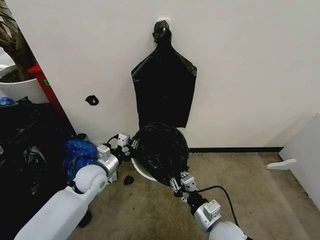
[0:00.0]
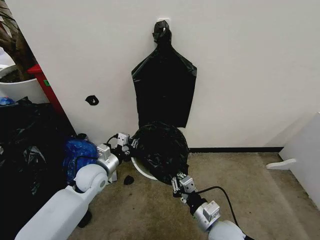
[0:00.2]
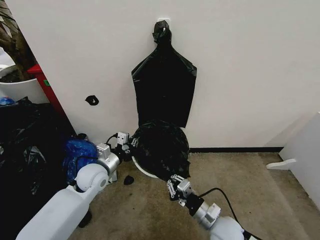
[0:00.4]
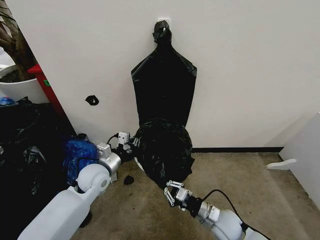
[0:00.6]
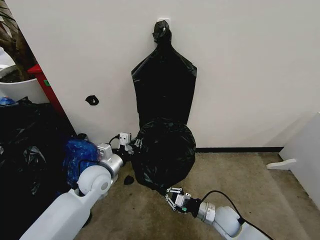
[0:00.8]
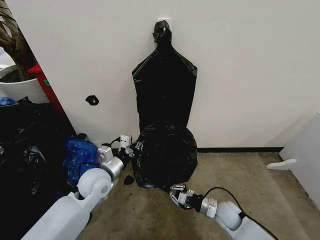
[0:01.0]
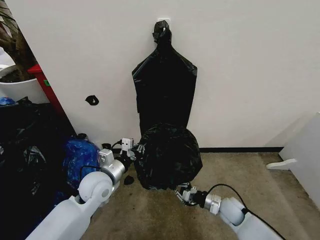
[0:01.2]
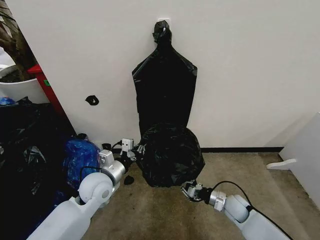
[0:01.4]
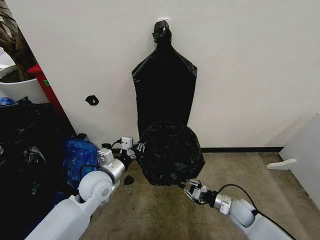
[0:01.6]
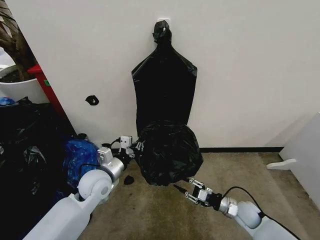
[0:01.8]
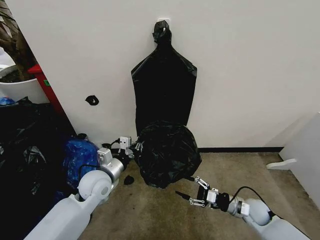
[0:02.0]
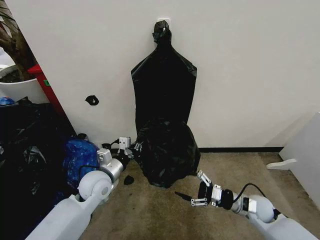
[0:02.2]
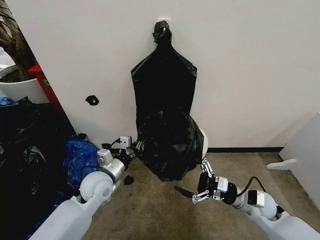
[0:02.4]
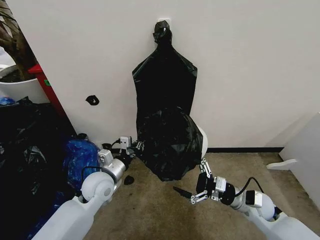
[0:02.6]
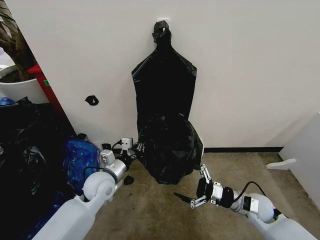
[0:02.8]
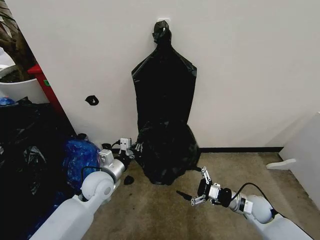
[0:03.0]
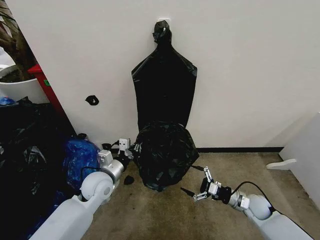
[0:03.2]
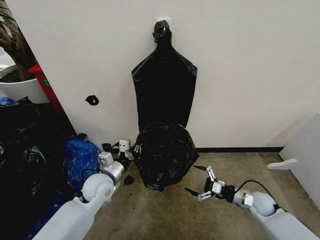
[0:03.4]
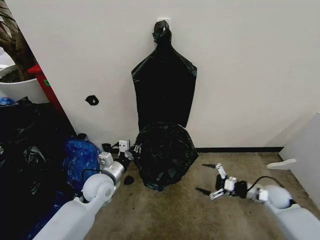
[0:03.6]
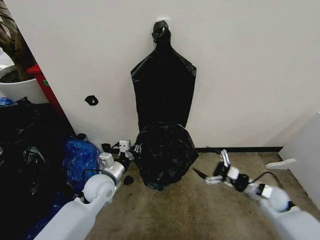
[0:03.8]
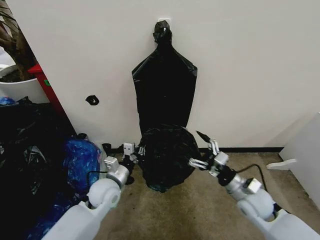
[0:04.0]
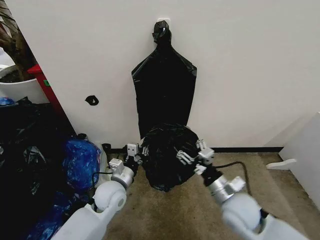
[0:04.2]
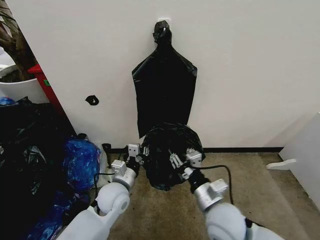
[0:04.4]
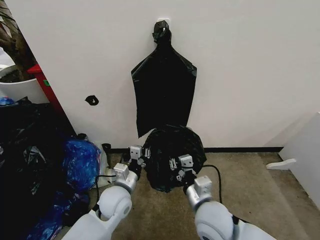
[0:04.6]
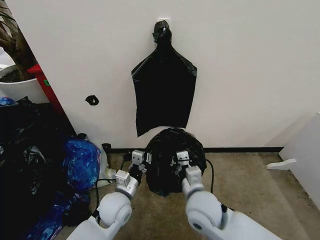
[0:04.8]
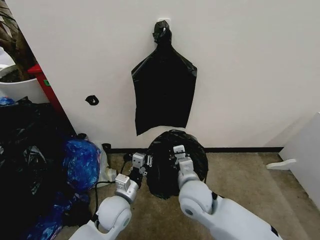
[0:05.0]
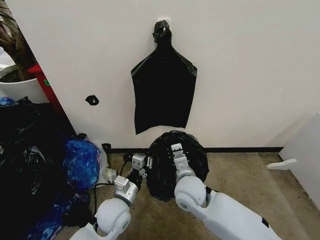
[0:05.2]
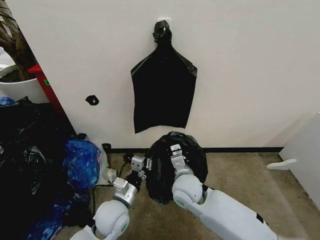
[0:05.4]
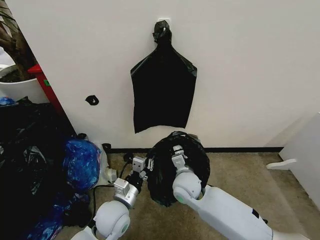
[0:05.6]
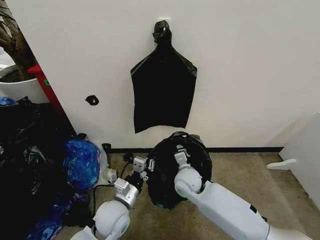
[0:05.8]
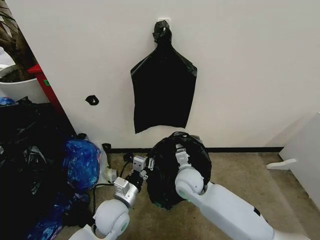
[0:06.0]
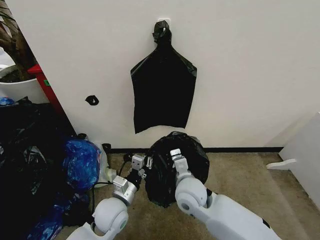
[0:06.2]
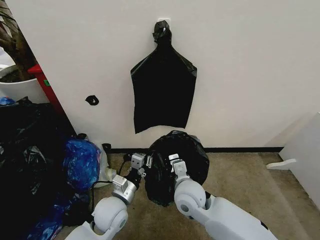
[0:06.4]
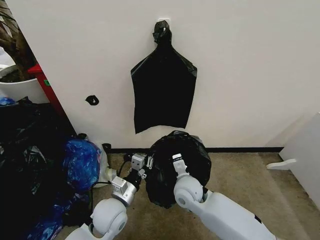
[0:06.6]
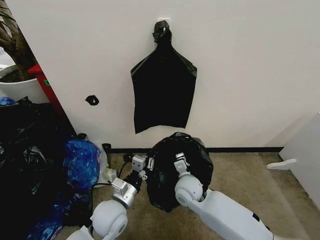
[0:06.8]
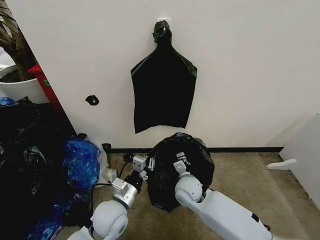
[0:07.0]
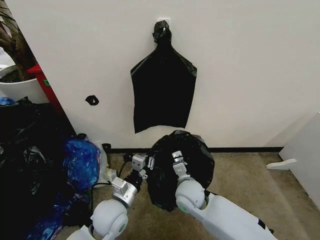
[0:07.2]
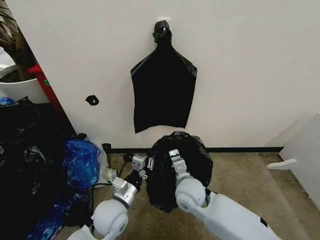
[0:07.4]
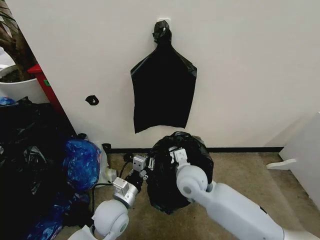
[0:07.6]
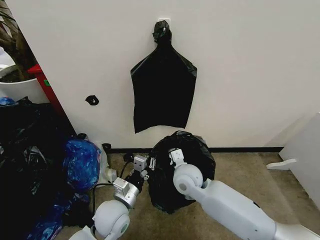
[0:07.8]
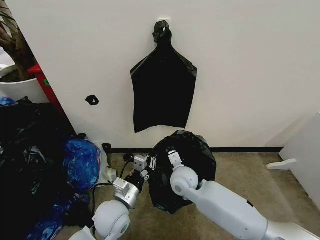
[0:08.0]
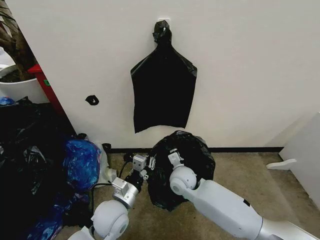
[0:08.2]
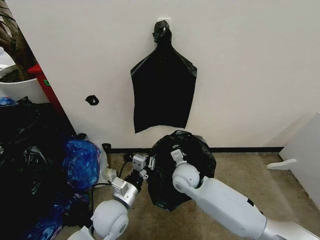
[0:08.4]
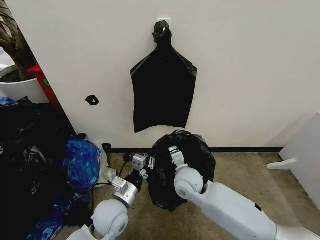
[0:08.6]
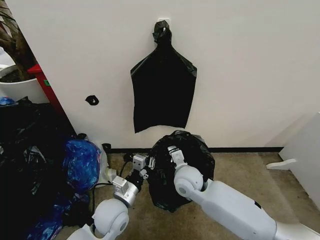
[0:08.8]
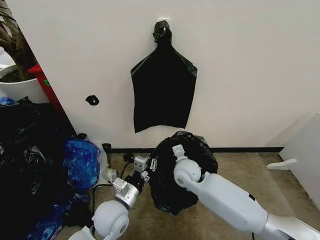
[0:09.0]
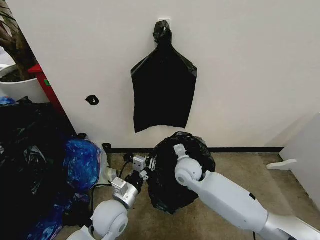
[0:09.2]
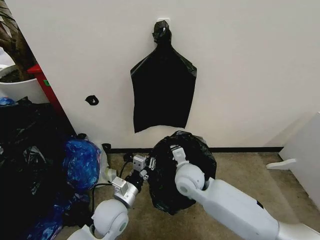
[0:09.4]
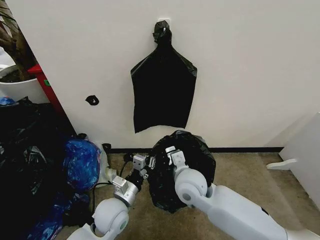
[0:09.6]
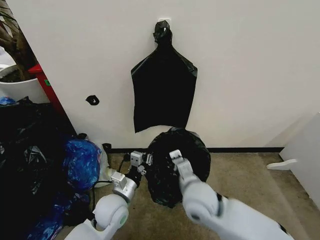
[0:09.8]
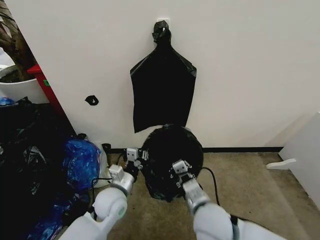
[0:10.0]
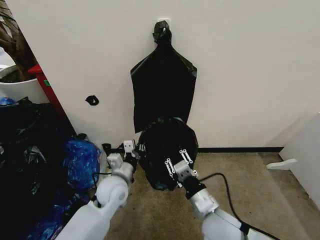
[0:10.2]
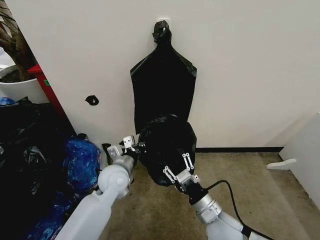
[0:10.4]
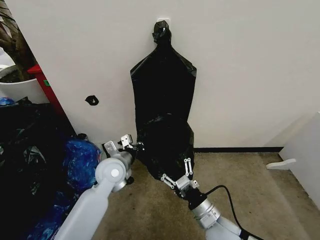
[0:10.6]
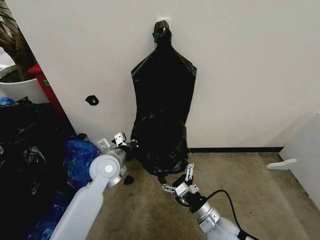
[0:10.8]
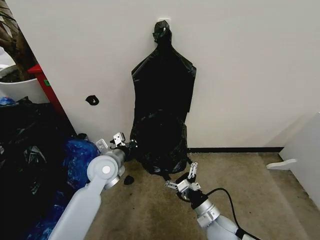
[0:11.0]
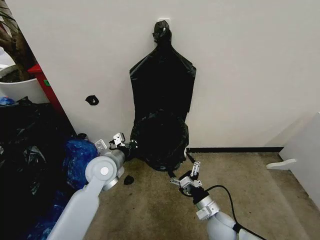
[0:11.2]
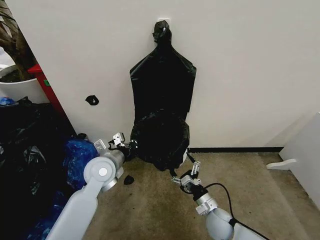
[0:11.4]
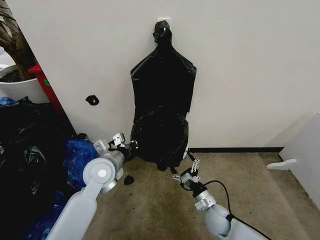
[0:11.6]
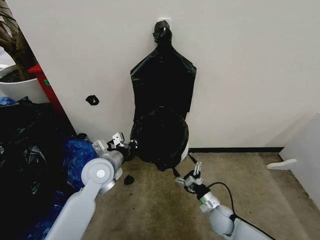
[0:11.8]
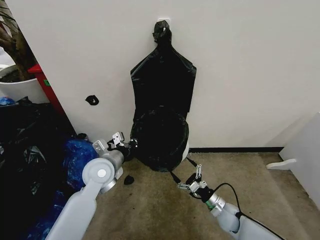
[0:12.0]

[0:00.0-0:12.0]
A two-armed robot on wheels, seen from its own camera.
Task of the whole recording: Place the garbage bag over the trash bin.
0:00.0 to 0:01.6: The left gripper changes place by roughly 5 cm; the right gripper is displaced downward, to the right and forward by some 25 cm.
0:01.6 to 0:03.0: The right gripper moves upward, about 5 cm, and opens.
0:03.0 to 0:04.4: The left gripper goes some 5 cm to the right, while the right gripper goes roughly 25 cm to the left, upward and backward, and closes.
0:04.4 to 0:06.0: The left gripper moves approximately 5 cm. Meanwhile the right gripper goes approximately 15 cm forward and to the left, and closes.
0:07.6 to 0:09.0: The right gripper goes some 5 cm forward.
0:09.0 to 0:10.4: The left gripper goes roughly 10 cm forward. The right gripper moves backward and to the right, some 20 cm, and opens its fingers.
0:10.4 to 0:12.0: The left gripper moves roughly 5 cm; the right gripper goes approximately 20 cm downward, and opens up.

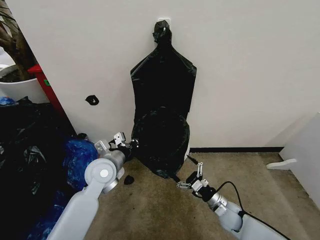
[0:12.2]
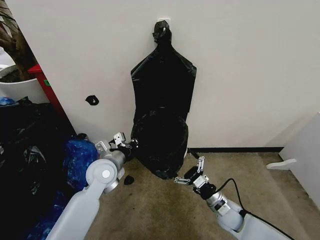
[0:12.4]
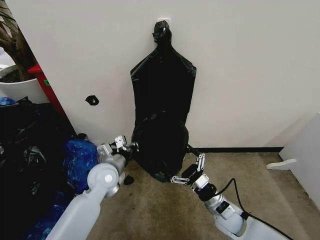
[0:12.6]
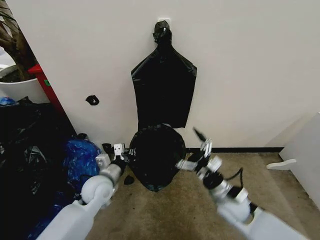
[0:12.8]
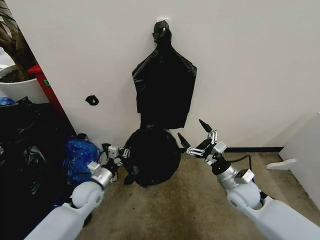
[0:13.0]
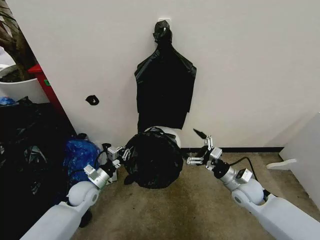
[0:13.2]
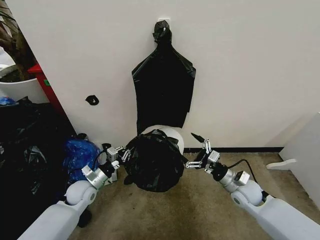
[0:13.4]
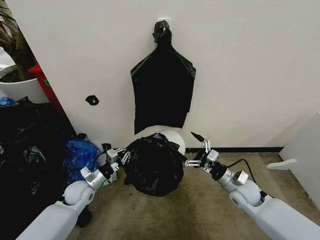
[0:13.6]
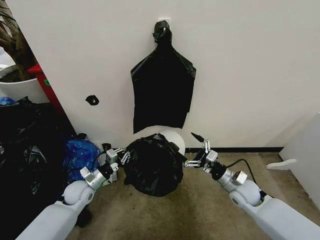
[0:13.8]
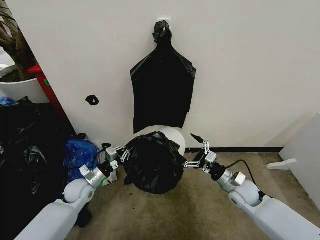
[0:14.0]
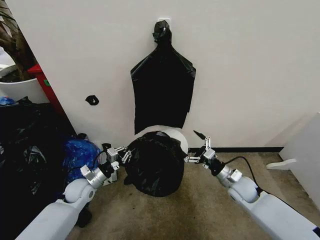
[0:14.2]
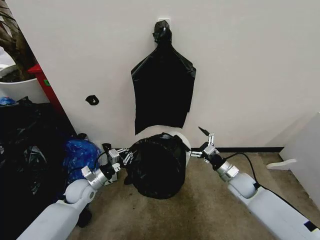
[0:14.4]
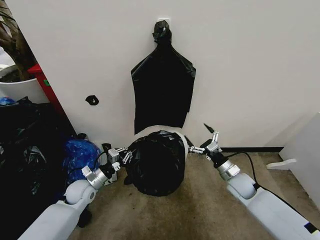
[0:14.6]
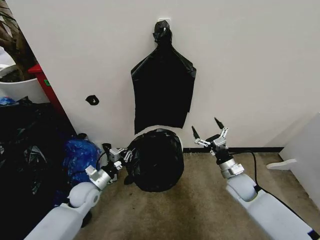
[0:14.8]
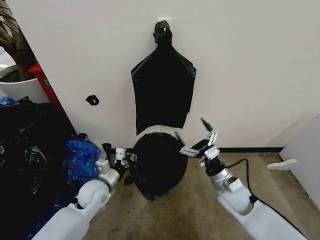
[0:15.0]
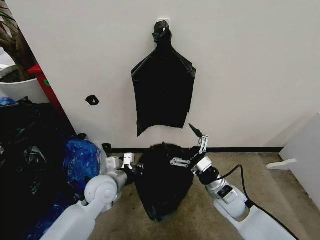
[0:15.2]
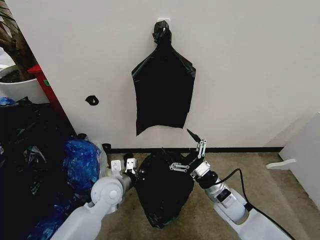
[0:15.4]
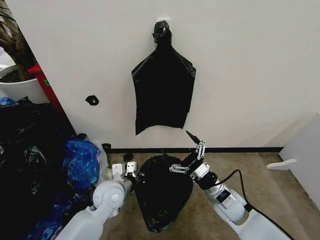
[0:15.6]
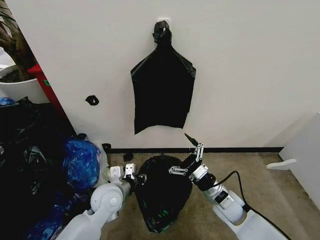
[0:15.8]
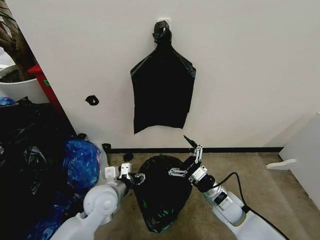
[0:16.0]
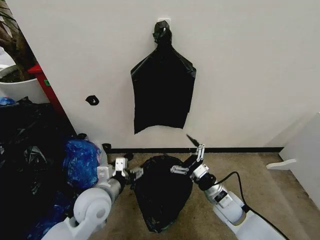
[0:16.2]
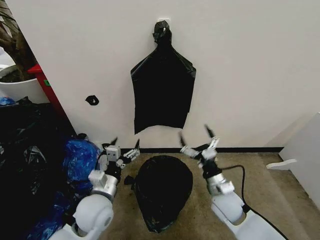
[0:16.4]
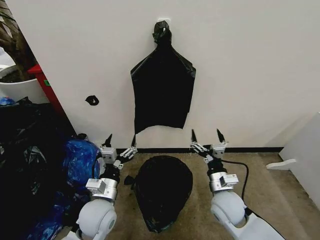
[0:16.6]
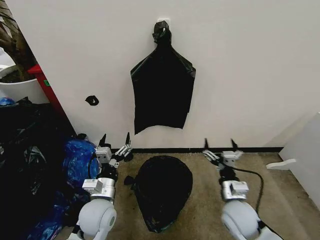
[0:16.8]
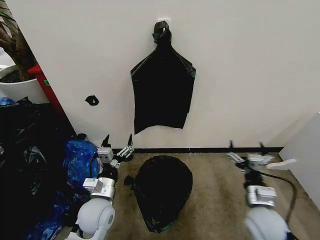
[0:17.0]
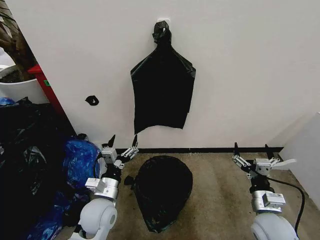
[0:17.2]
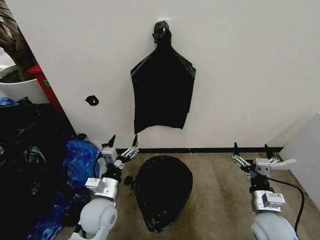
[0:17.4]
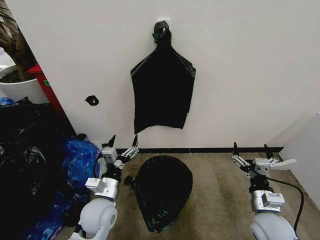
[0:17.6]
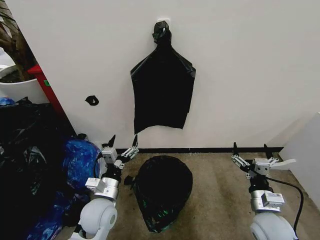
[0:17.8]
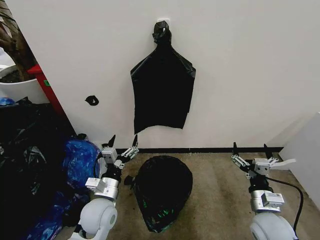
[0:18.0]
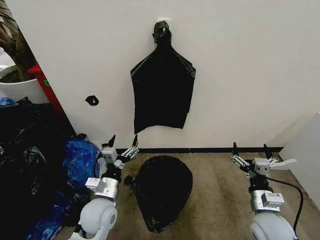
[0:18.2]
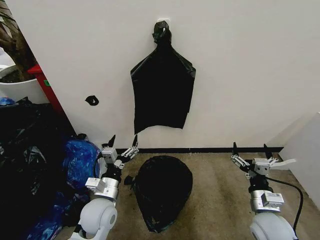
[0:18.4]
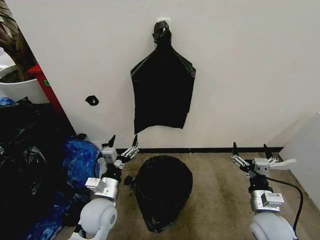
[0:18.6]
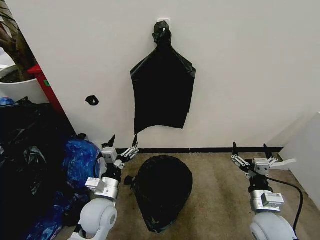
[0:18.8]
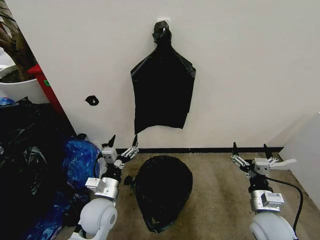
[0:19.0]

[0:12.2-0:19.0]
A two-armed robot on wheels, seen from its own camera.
Task of the whole recording: Place the garbage bag over the trash bin.
0:12.2 to 0:13.6: The right gripper goes some 15 cm upward. Meanwhile the left gripper is displaced downward and to the left by approximately 20 cm.
0:13.6 to 0:15.0: The left gripper heads to the right, covering about 5 cm, while the right gripper is displaced to the left by about 5 cm.
0:15.0 to 0:16.2: The left gripper is displaced upward and backward by approximately 10 cm, and opens its fingers.
0:16.2 to 0:17.6: The left gripper changes place by about 5 cm. Meanwhile the right gripper is displaced backward, to the right and upward by about 15 cm.
0:17.6 to 0:19.0: The two grippers keep their place.

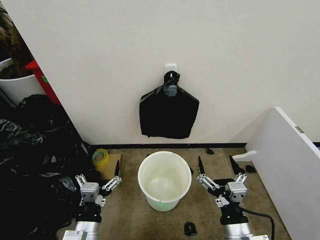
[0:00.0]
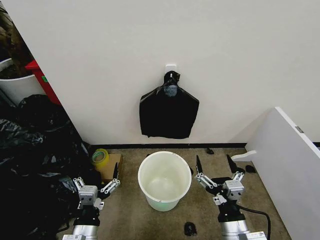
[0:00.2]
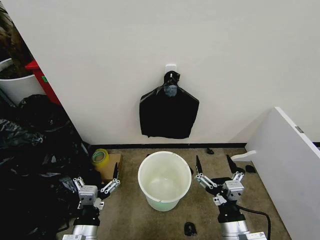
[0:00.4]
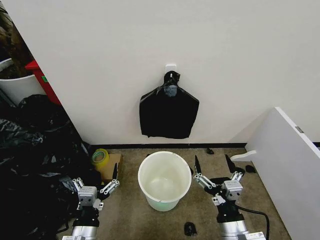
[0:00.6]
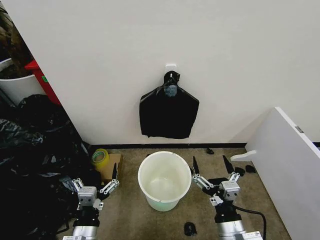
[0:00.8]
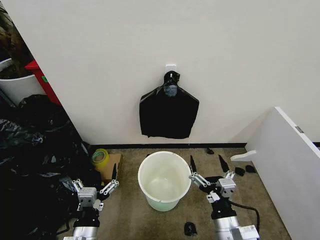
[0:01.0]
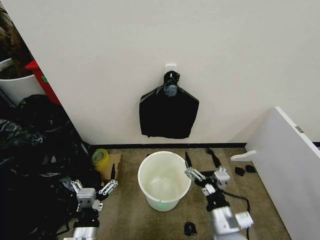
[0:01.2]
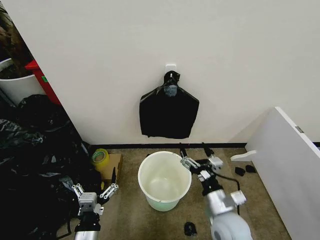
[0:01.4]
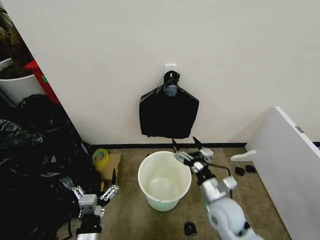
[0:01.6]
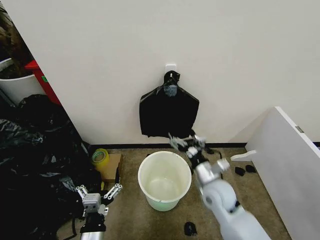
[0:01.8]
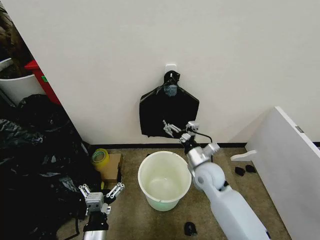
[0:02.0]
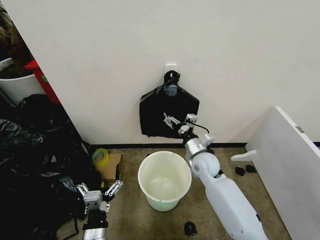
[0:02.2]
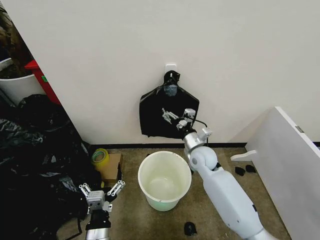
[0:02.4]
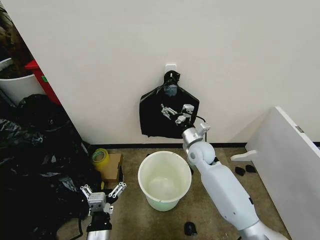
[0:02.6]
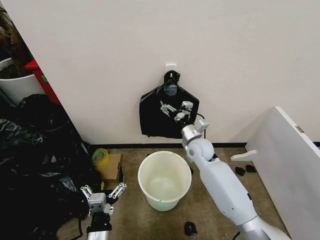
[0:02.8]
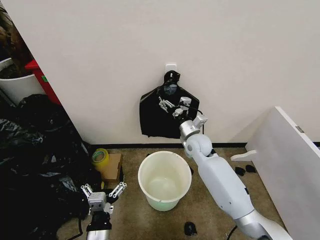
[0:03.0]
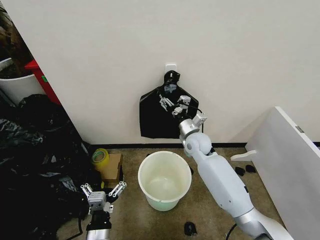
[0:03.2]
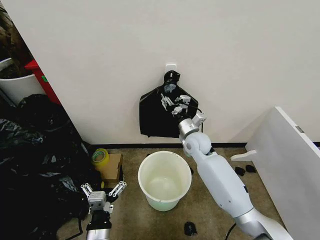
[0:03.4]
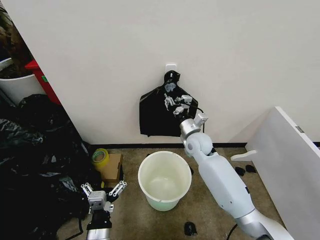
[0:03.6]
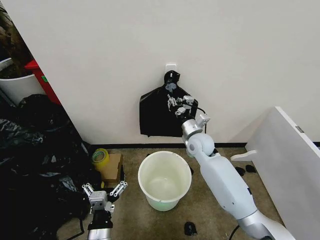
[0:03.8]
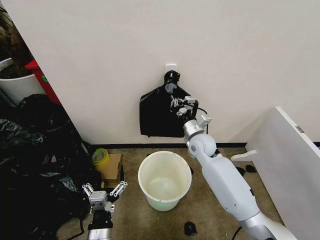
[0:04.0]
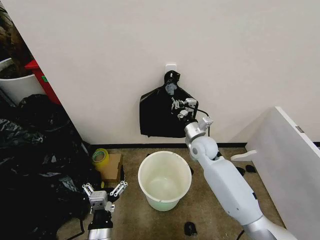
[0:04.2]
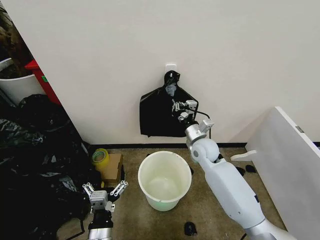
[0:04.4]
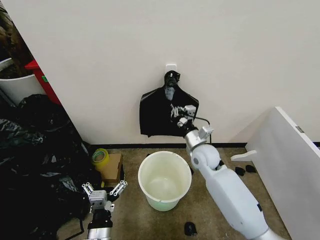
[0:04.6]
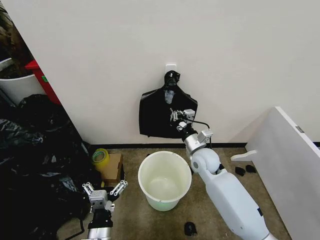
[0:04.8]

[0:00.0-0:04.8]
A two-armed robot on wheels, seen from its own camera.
Task of the whole recording: Place the garbage bag over the trash bin.
0:01.6 to 0:03.2: The right gripper moves forward, approximately 25 cm.
0:03.2 to 0:04.8: The right gripper heads backward, covering approximately 5 cm, and closes its fingers.
